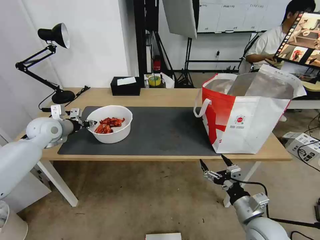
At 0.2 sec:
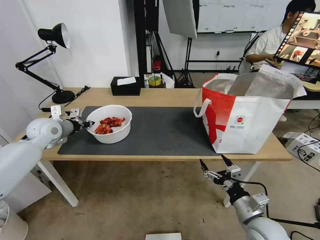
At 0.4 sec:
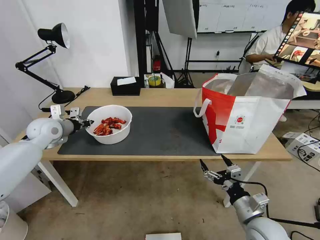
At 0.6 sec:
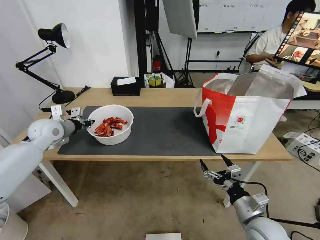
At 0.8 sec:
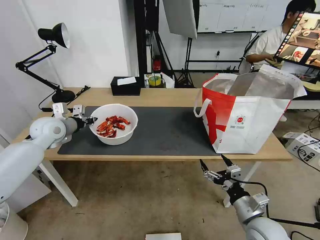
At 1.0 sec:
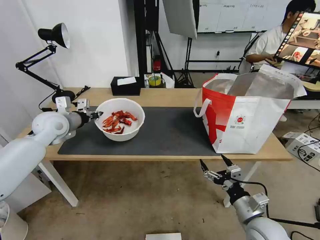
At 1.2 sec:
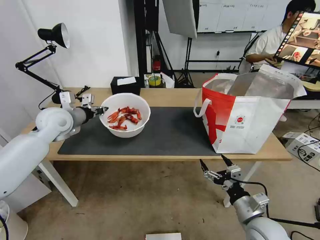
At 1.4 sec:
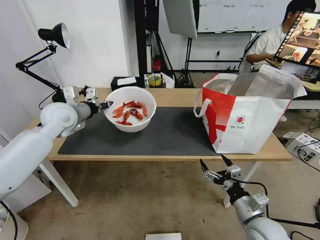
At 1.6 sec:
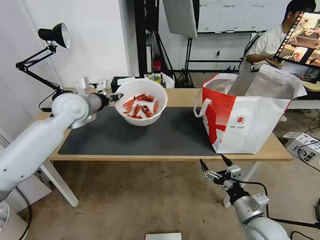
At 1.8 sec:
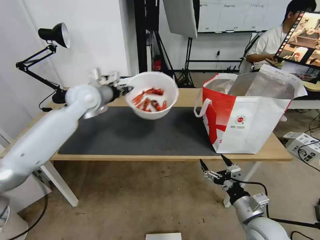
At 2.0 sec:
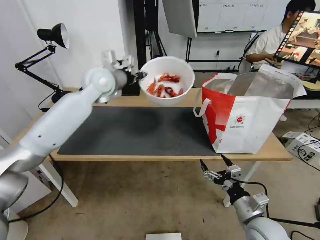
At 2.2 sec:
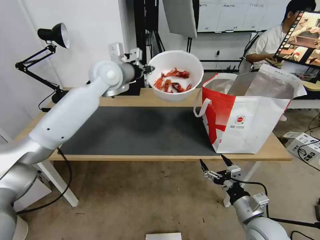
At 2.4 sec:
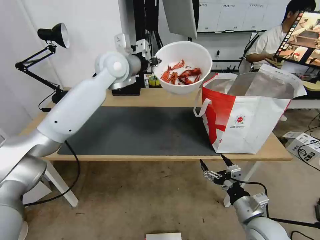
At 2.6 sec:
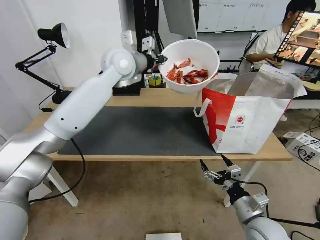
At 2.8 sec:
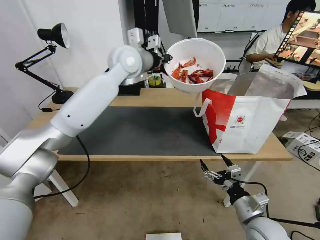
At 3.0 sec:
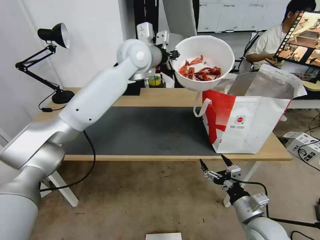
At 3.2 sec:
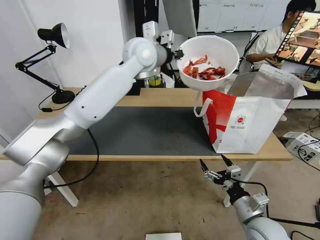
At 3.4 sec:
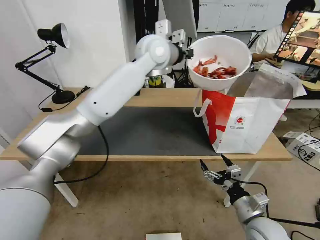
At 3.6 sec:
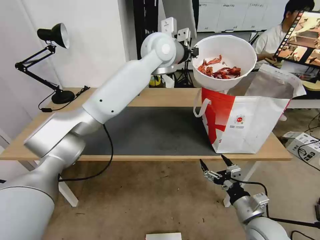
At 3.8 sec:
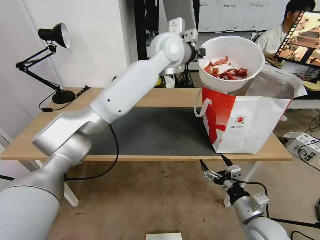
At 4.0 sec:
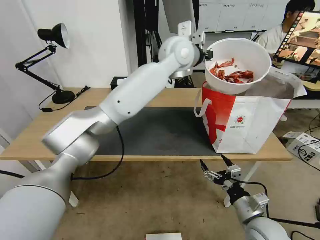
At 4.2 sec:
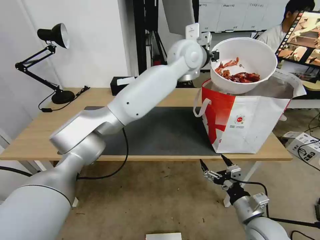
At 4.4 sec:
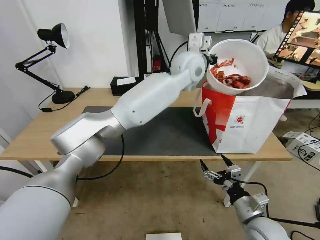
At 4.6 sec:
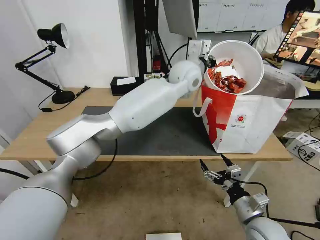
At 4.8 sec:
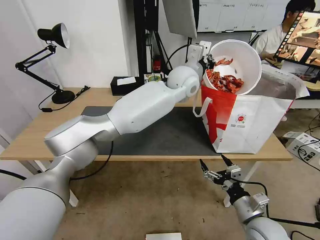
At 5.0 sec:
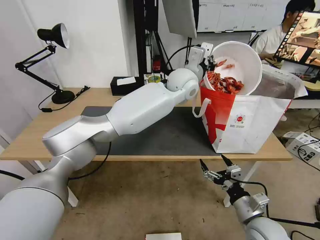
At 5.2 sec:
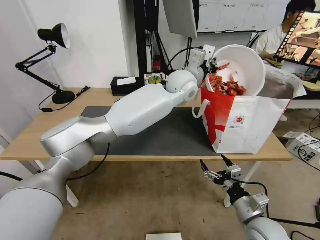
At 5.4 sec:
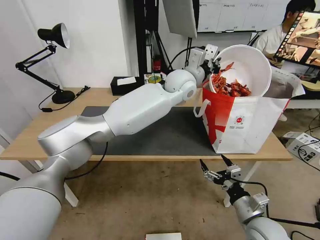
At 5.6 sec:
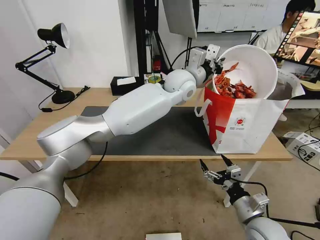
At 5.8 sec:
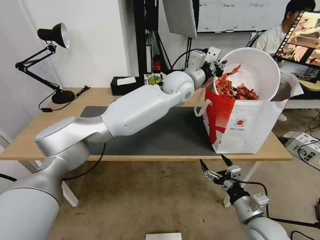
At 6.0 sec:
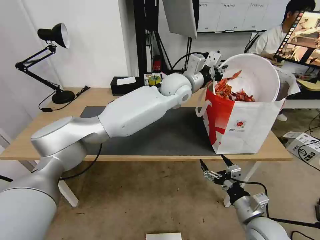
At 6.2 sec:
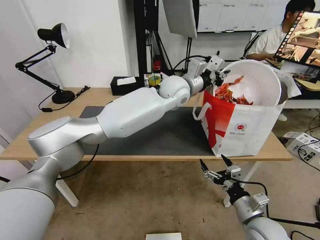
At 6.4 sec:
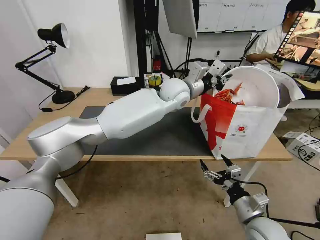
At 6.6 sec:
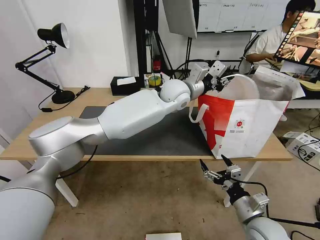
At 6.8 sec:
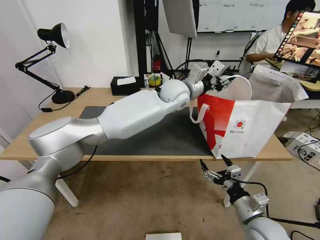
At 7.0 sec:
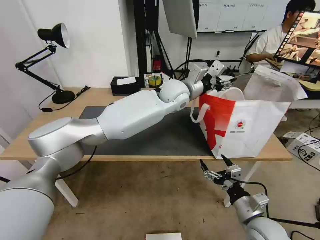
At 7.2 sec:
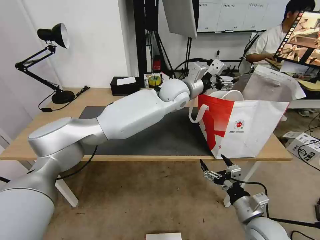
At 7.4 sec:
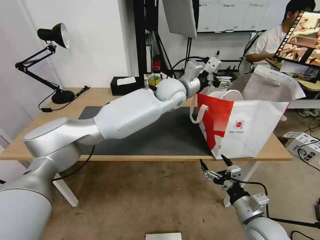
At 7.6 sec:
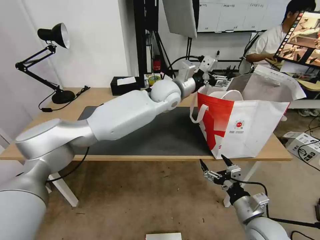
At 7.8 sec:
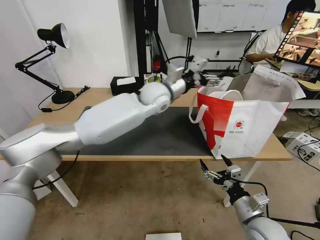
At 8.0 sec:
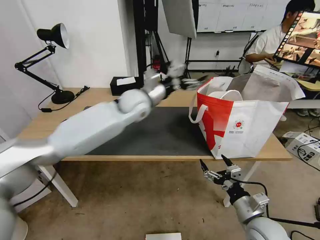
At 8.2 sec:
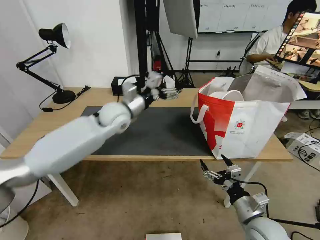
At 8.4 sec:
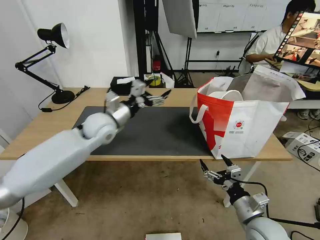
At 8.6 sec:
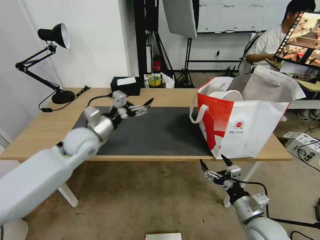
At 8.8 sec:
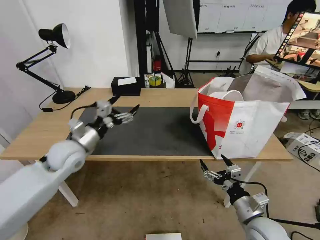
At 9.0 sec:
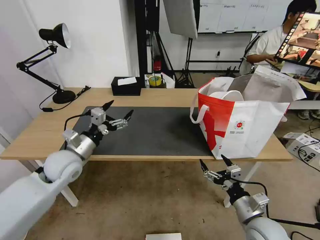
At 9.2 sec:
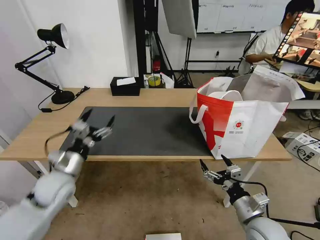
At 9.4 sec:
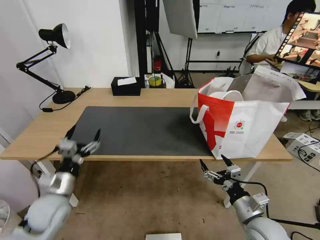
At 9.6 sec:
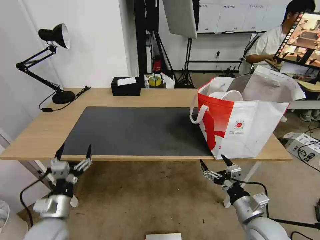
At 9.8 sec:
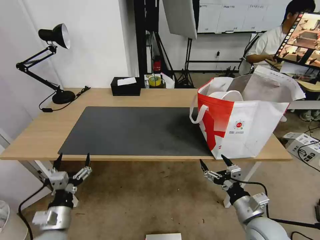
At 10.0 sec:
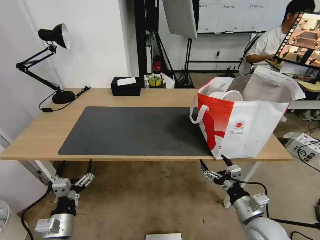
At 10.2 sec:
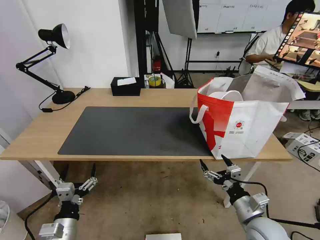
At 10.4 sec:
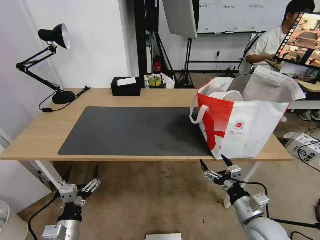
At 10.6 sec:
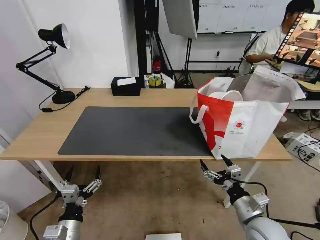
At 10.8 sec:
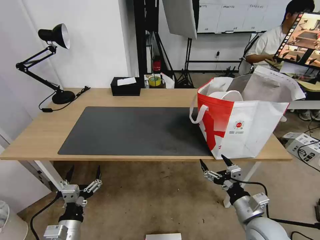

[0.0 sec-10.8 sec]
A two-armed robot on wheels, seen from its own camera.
Task of the whole recording: Pick up the trash from the table and place it into the takeout bag.
0.0 sec to 1.6 sec: The left gripper shifts approximately 15 cm to the right and upward.
1.6 sec to 3.0 sec: The left gripper heads to the right and upward, covering roughly 25 cm.
3.0 sec to 4.6 sec: The left gripper shifts roughly 15 cm to the right.
4.6 sec to 6.2 sec: The left gripper changes place by approximately 5 cm.
6.2 sec to 7.8 sec: The left gripper travels to the left by some 5 cm, and opens its fingers.
7.8 sec to 9.2 sec: The left gripper goes about 40 cm to the left, backward and downward.
9.2 sec to 10.8 sec: The left gripper goes approximately 20 cm backward and downward.

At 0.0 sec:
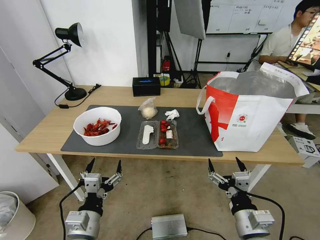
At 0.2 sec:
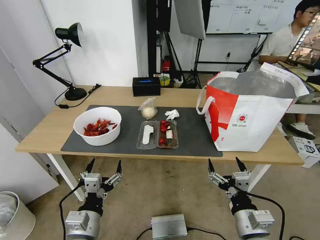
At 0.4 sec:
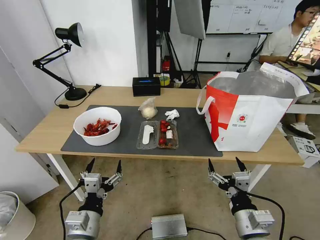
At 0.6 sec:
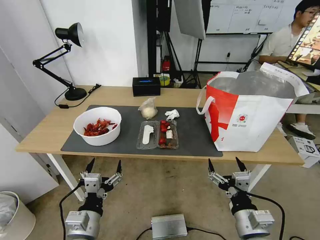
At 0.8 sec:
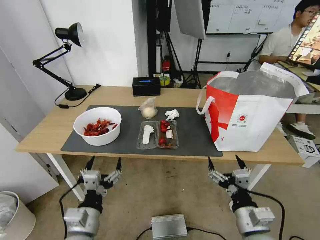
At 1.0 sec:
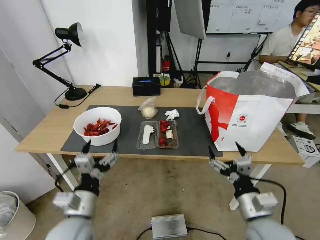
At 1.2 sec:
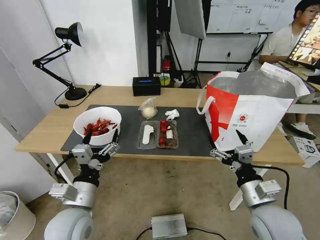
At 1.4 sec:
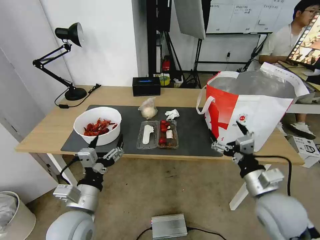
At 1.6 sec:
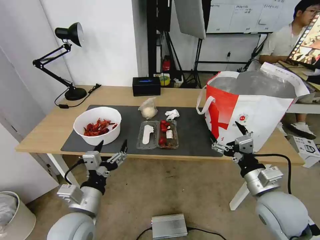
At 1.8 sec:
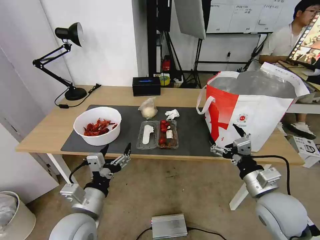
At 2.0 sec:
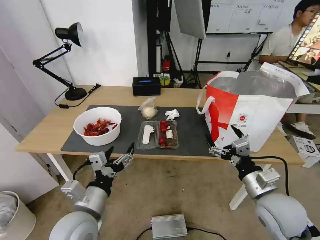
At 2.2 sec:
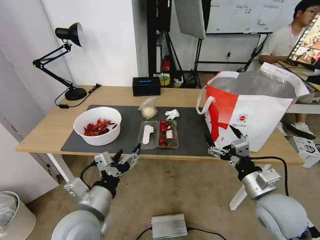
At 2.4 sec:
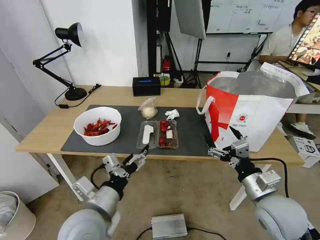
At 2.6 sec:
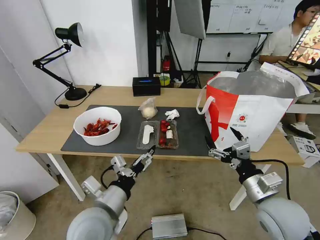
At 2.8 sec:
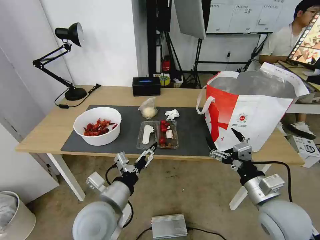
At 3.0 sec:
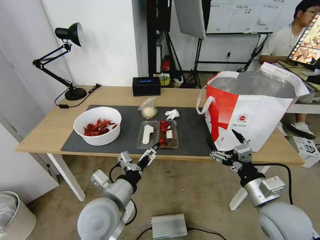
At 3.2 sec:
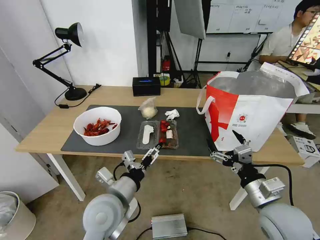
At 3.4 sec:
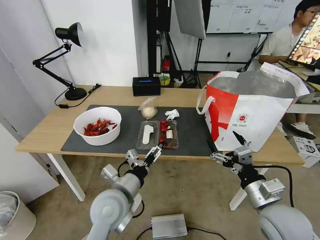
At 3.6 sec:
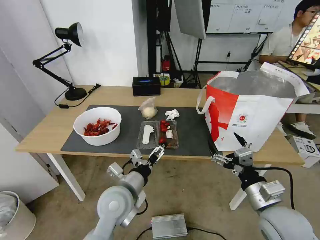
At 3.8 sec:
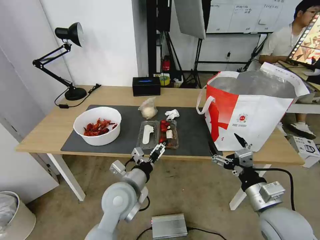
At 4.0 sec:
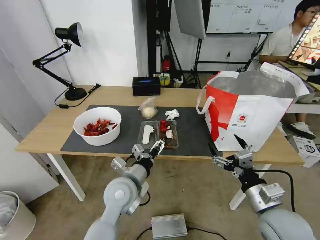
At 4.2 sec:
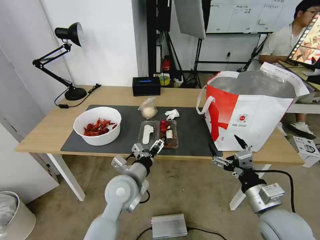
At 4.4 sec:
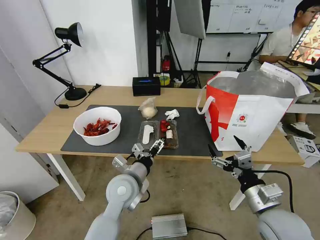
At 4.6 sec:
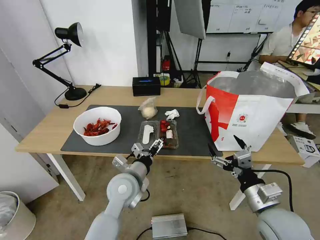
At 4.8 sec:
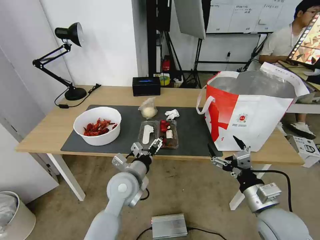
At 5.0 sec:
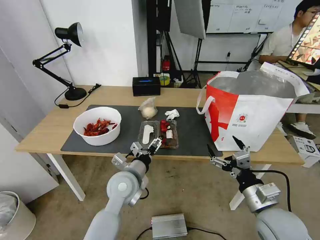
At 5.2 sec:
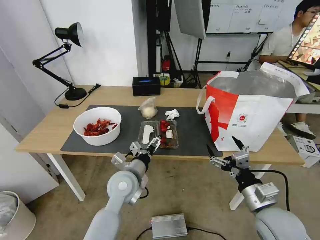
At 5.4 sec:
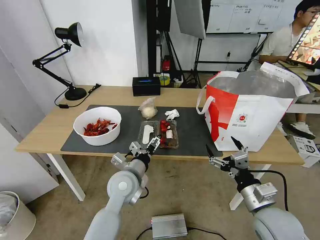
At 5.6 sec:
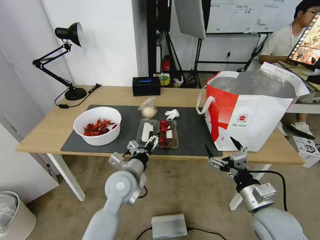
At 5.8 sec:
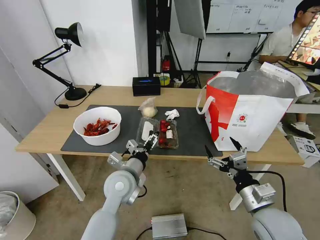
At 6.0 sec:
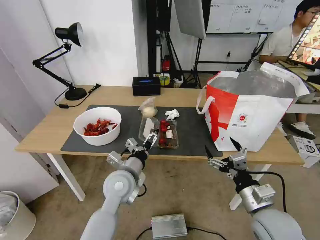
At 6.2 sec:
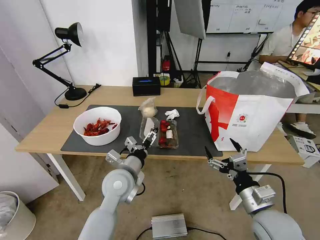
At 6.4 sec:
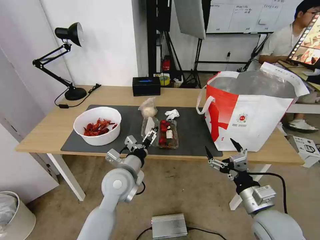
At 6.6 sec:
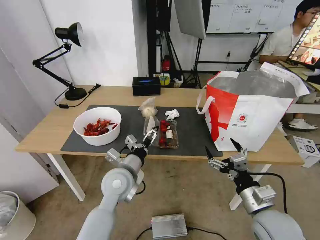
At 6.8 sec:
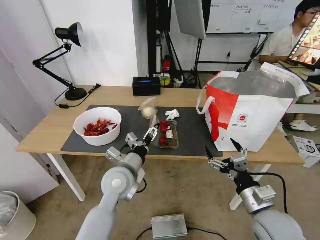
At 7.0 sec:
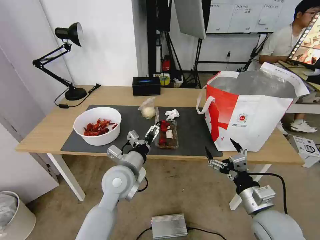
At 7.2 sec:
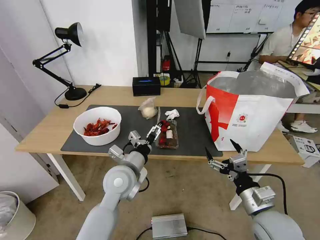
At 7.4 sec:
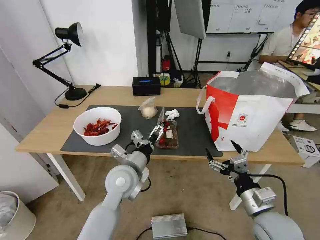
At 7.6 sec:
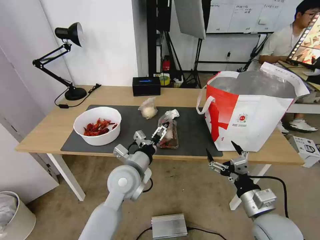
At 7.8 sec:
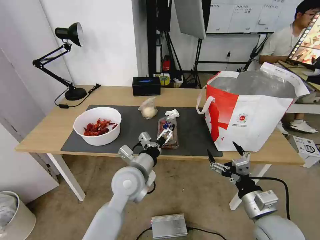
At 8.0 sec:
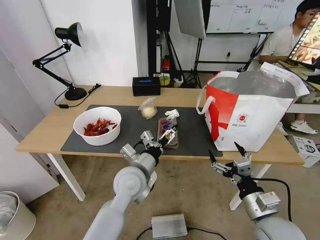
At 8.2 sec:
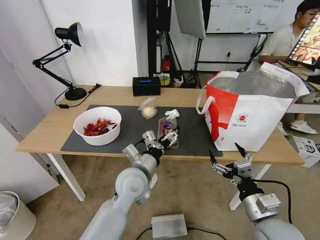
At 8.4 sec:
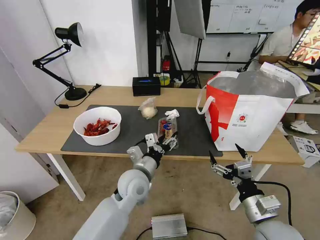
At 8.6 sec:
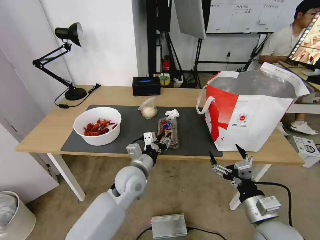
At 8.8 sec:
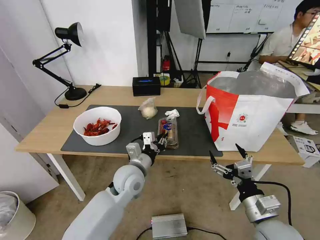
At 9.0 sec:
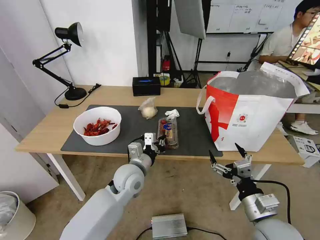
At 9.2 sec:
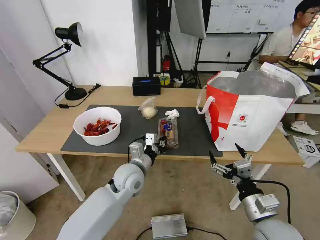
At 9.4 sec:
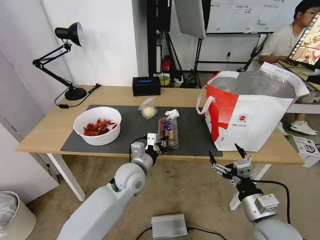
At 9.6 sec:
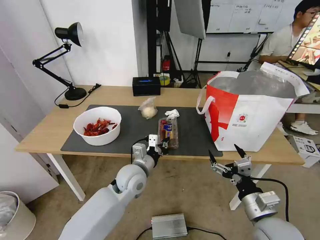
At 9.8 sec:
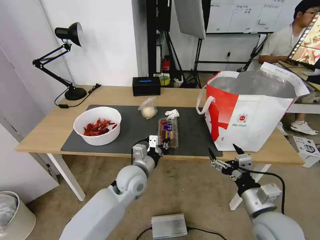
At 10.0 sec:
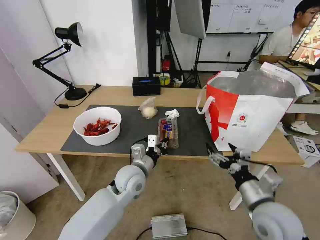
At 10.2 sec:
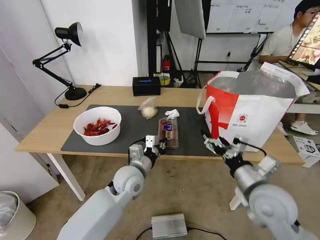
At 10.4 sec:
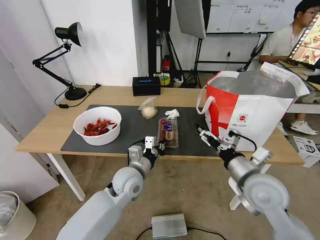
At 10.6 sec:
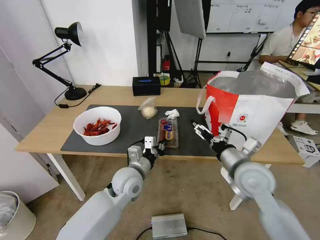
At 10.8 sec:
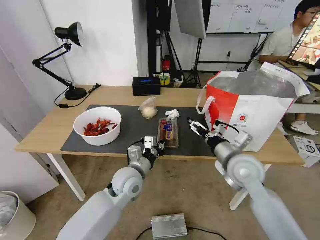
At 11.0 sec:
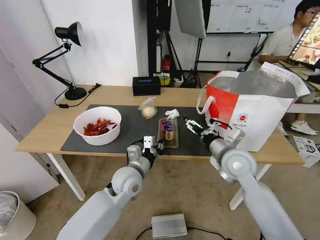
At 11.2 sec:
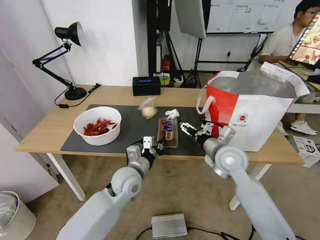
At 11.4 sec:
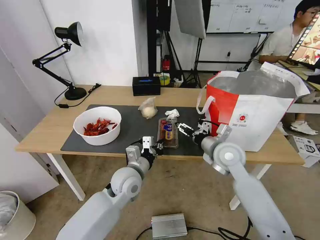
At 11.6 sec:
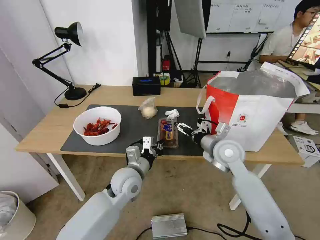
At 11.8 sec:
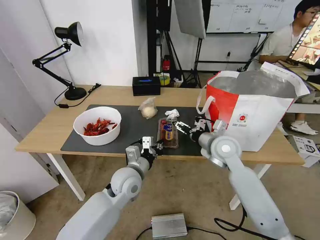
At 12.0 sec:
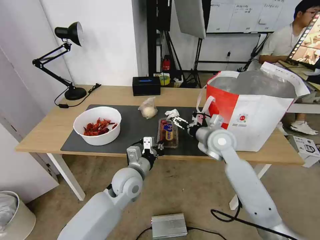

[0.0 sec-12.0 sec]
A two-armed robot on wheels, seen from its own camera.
Task of the whole recording: Pick up the trash from the table and place it into the takeout bag.
1.6 sec to 3.0 sec: The left gripper shifts some 5 cm to the right.
3.0 sec to 4.4 sec: The left gripper goes about 10 cm forward.
4.4 sec to 7.6 sec: The grippers make only small movements.
7.6 sec to 9.0 sec: The left gripper shifts by some 5 cm, and closes its fingers.
9.0 sec to 10.4 sec: The right gripper is displaced forward and upward by roughly 10 cm.
10.4 sec to 12.0 sec: The right gripper shifts about 15 cm forward.
